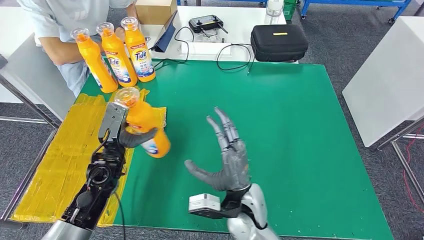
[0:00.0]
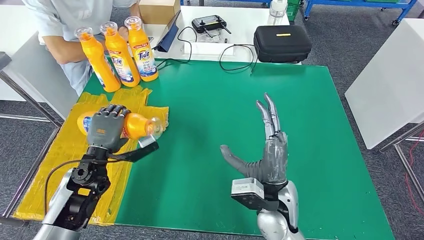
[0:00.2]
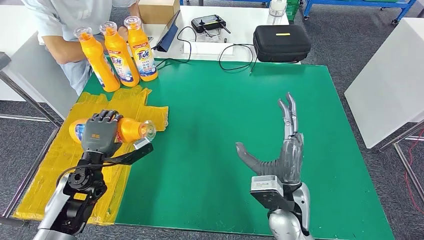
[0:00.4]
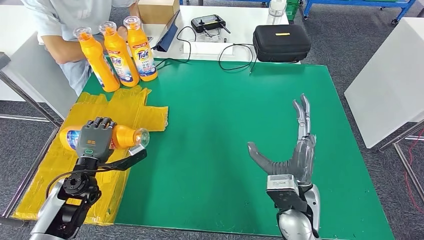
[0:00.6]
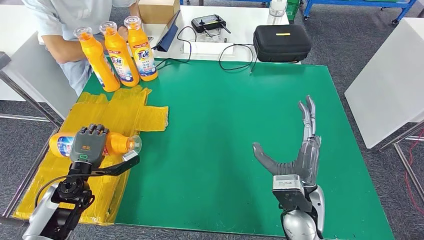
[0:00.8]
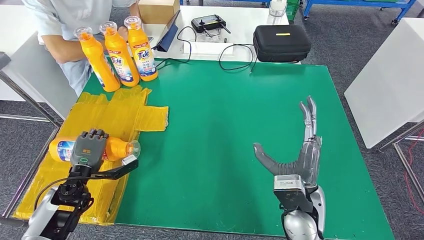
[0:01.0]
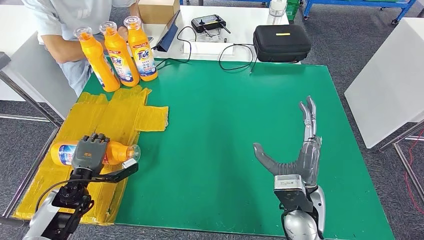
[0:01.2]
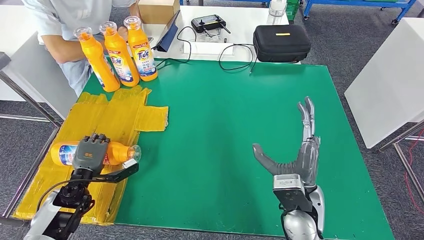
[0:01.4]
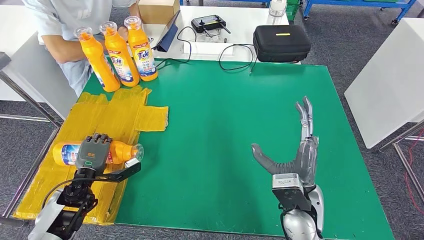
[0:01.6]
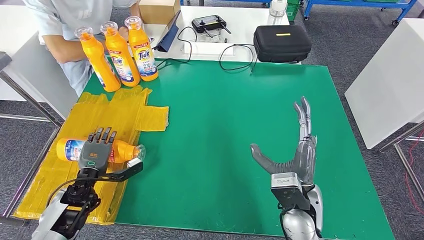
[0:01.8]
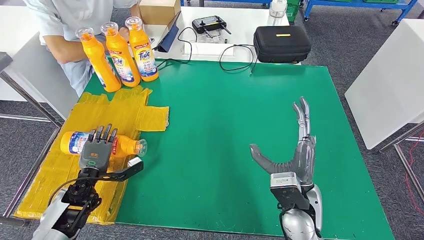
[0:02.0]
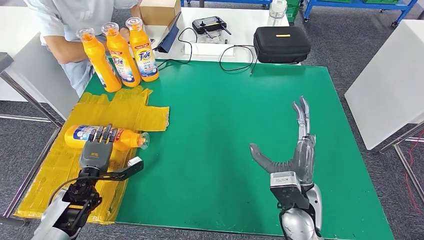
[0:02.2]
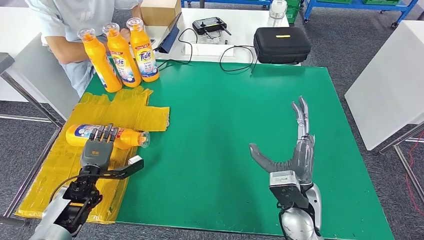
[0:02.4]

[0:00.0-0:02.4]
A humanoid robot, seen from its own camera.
Step, 0:00.0 to 0:02.4: Flip the bottle to face forward.
0:01.2 to 0:02.4: The hands make only small movements.
